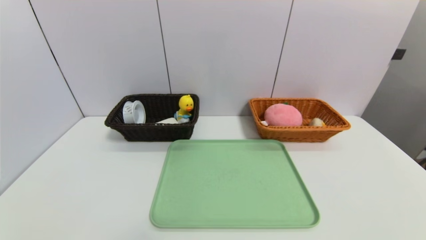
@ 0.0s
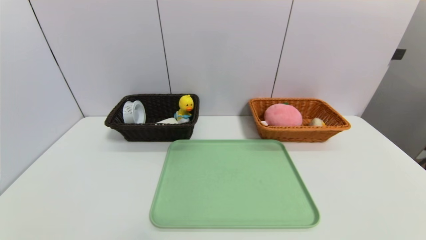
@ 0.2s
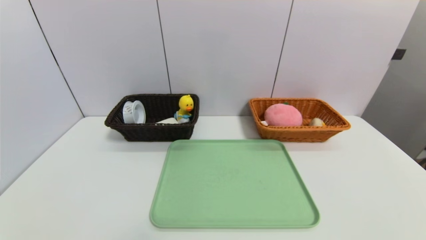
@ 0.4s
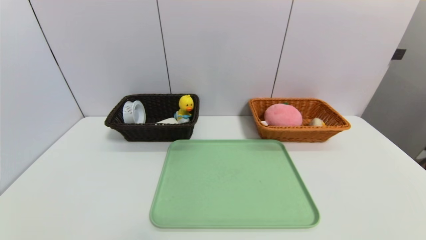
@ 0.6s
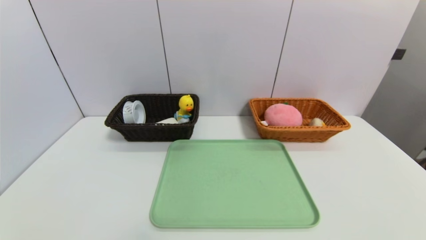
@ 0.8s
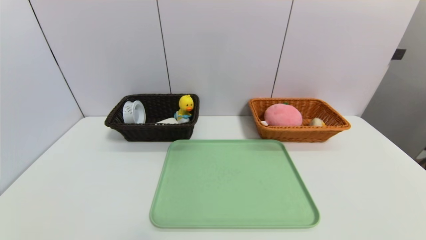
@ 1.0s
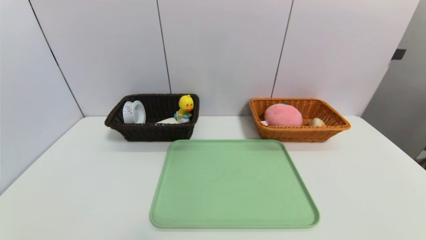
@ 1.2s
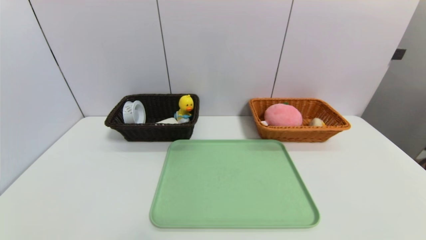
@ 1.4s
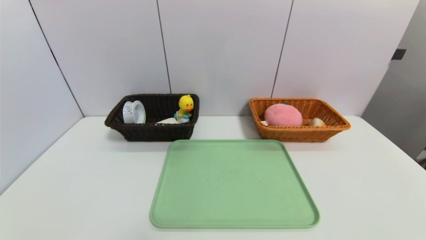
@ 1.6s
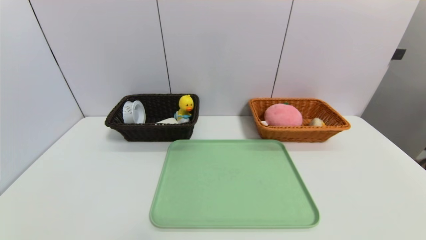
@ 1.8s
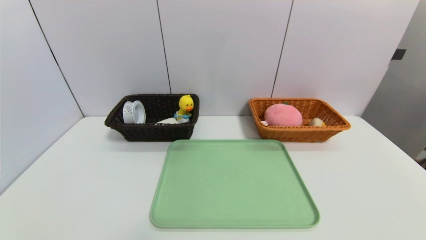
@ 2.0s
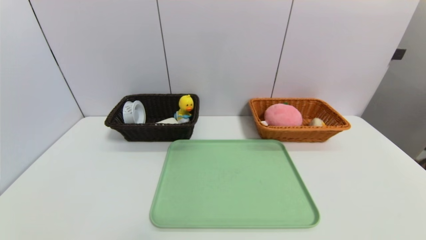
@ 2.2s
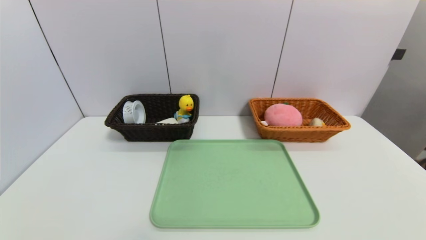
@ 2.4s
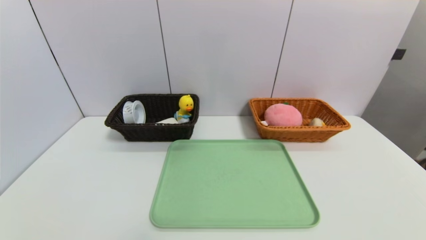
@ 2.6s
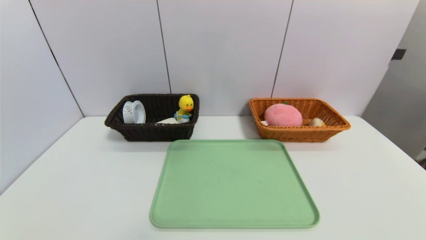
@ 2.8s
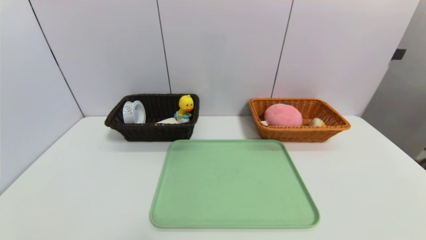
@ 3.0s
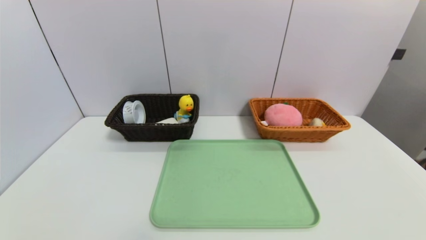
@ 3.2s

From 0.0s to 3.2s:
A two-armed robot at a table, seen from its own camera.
Task of the whole recording: place the food in the right basket with the right gripper, and place the non food items in the left basket with the left gripper.
From 0.0s to 3.2s: Both grippers stay about where they are.
